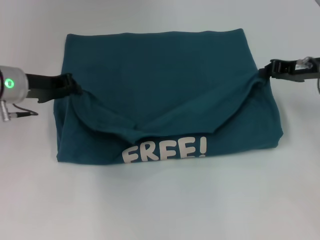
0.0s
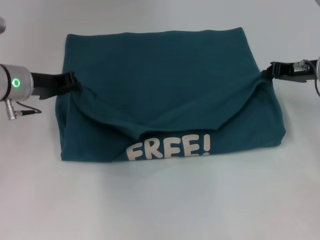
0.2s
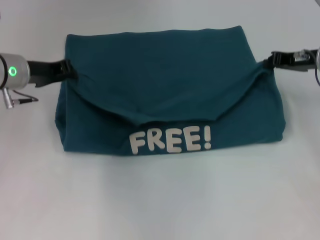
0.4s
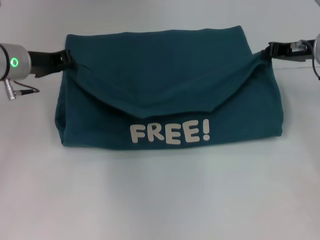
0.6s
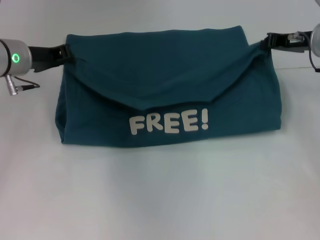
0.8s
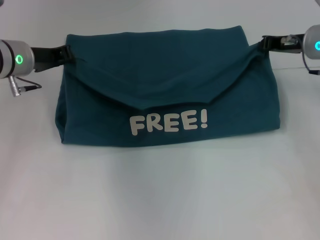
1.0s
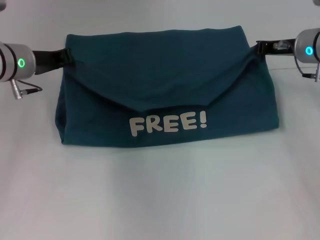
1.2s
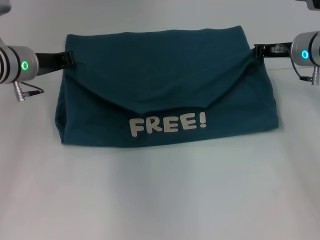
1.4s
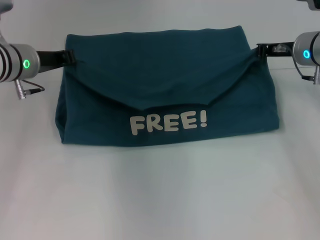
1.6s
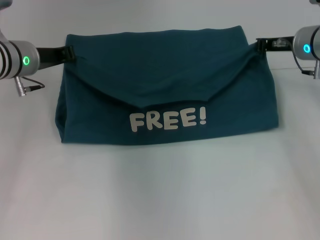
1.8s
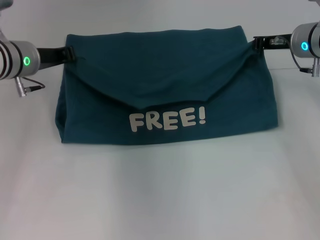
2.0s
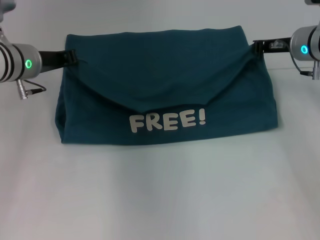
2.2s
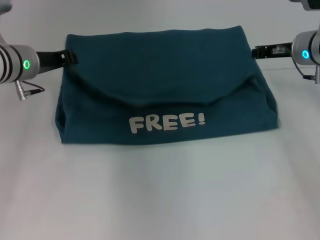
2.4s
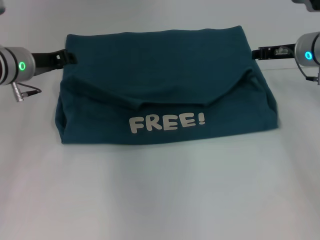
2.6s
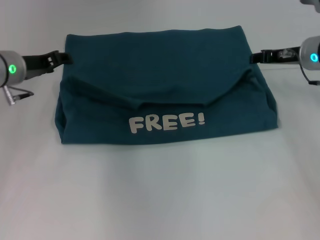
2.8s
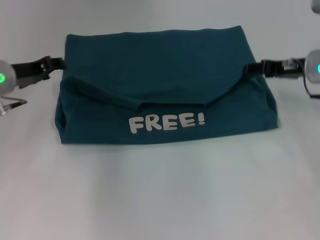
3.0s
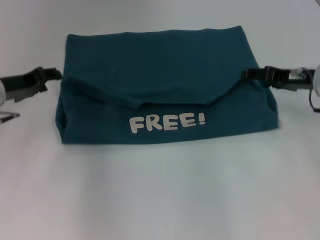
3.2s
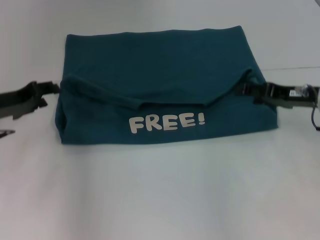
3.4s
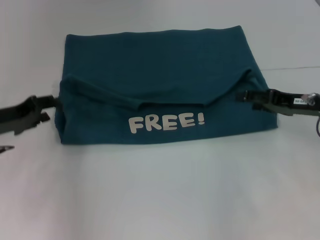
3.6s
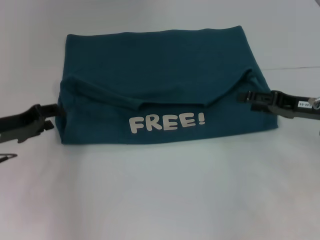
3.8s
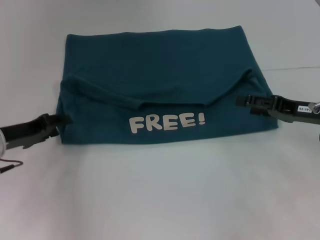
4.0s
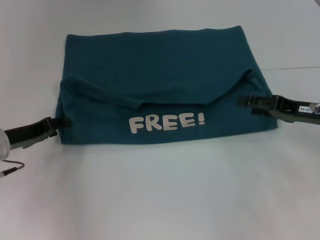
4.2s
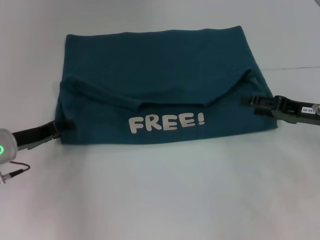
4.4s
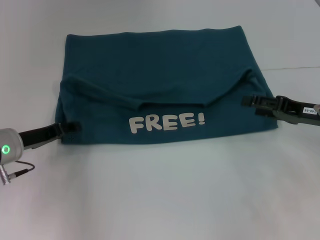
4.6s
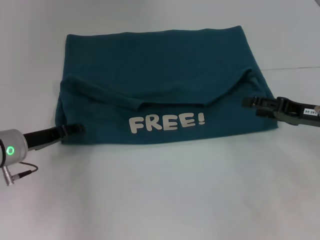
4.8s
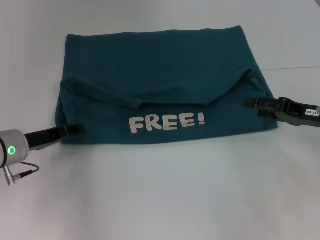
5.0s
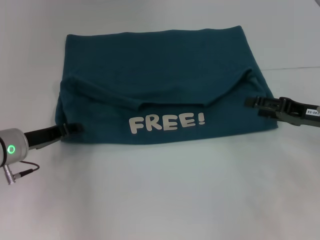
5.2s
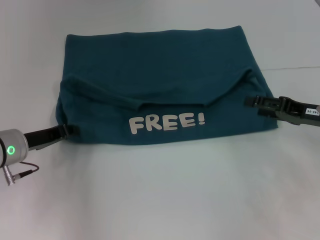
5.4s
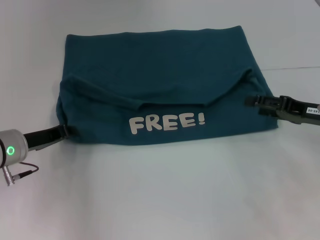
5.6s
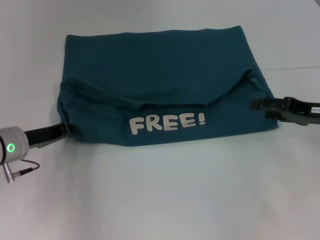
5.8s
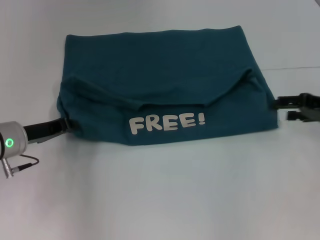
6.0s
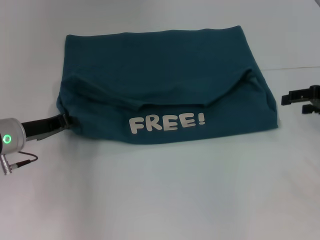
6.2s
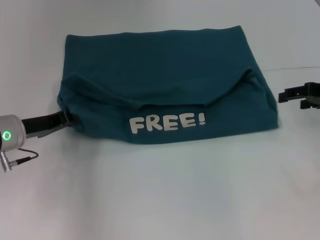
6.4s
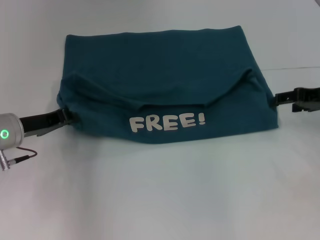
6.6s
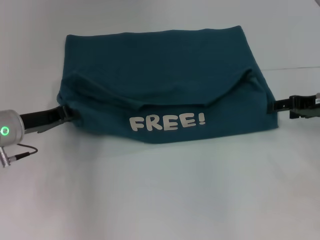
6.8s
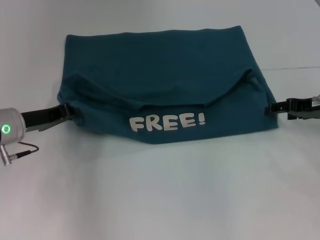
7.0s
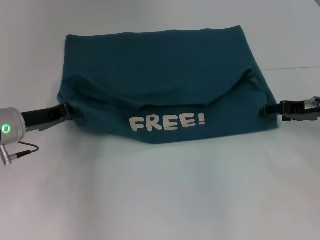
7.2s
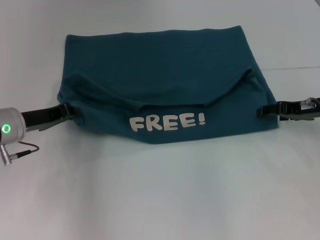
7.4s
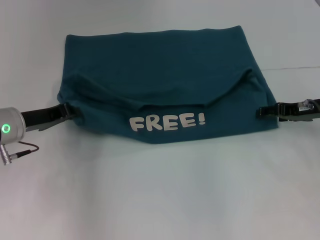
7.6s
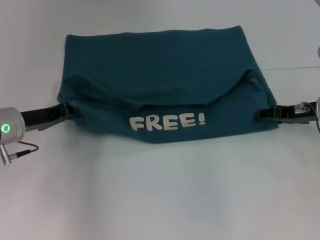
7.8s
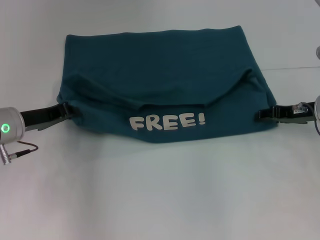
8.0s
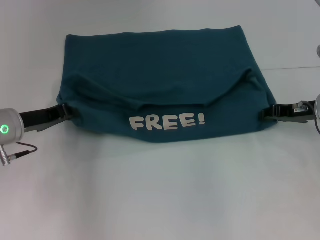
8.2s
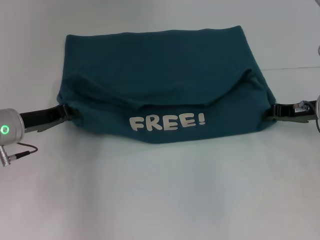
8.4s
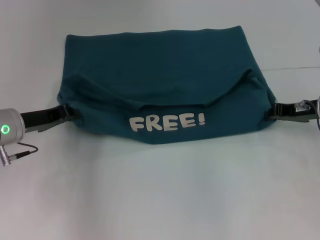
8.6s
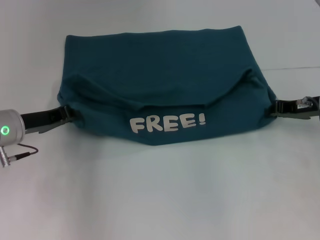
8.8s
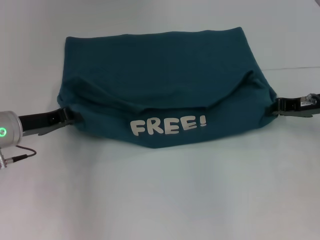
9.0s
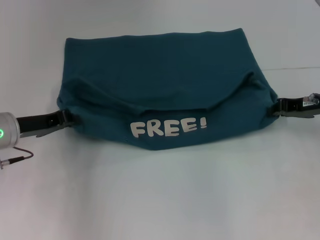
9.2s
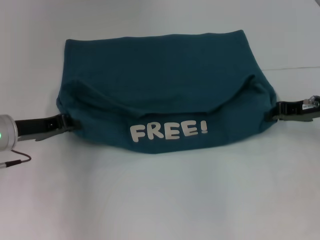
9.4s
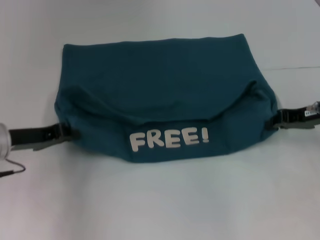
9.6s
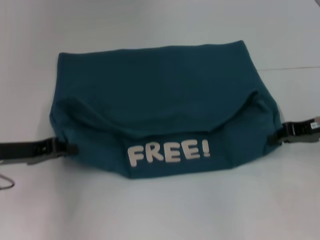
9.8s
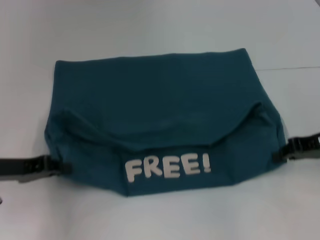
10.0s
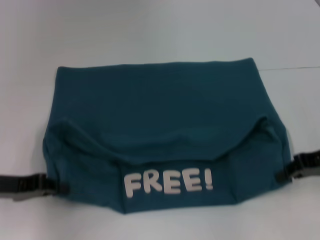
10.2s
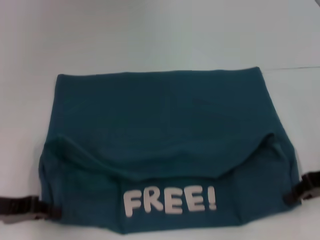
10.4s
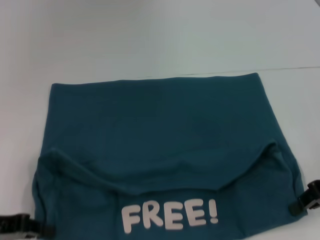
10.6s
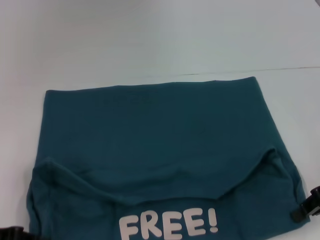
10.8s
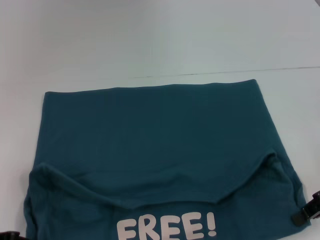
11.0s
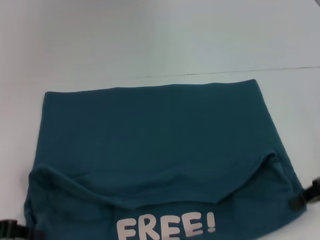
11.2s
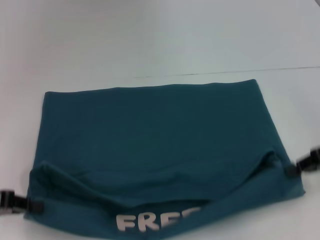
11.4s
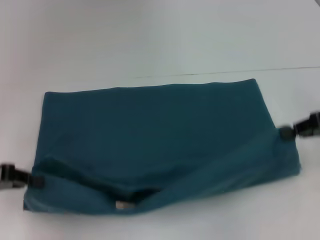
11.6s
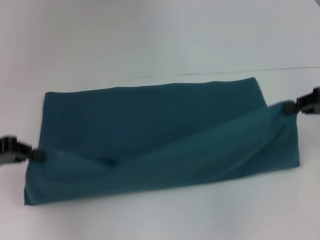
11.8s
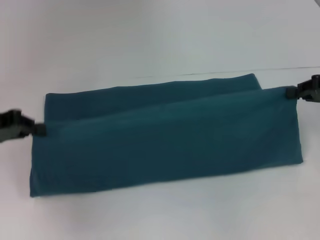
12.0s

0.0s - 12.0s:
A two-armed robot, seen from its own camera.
Step, 0.0s - 2.4s: Fold the clothes to the left.
Step, 0.0s - 2.4s: Fold the clothes to the right.
Step, 2.6s - 10.6s: Pull the clothes with your left hand.
Step, 2.6s - 10.6s: Pull the clothes with your right hand.
0.0s - 1.6s: The right gripper moves roughly 5 cm.
1.6s - 3.0s: The left gripper opens up, while the right gripper opens up.
3.0s - 4.4s: The left gripper is displaced downward and backward by approximately 10 cm. The right gripper moves backward, about 10 cm, and opens.
4.4s - 6.0s: The left gripper closes its fingers, while the right gripper changes place by roughly 5 cm.
6.0s - 7.6s: The right gripper ends up some 5 cm from where it was.
7.6s - 9.0s: The right gripper closes.
9.0s - 10.4s: Both grippers move backward, roughly 10 cm.
10.4s - 12.0s: The right gripper shifts by about 5 cm. The left gripper heads upward and forward, covering approximately 10 cm.

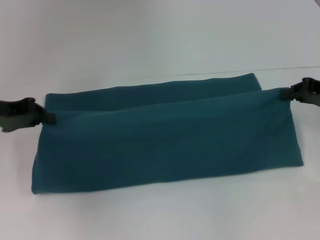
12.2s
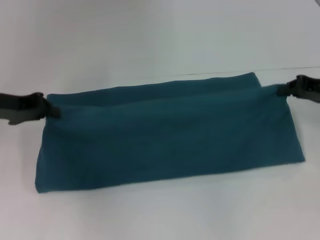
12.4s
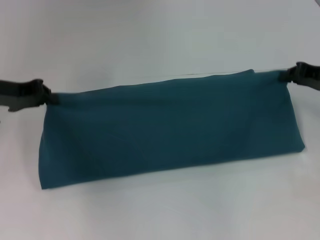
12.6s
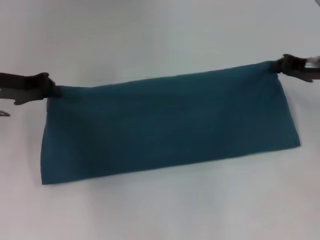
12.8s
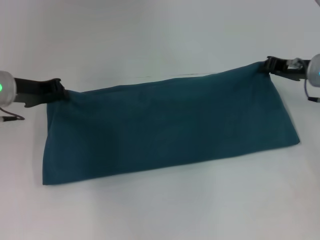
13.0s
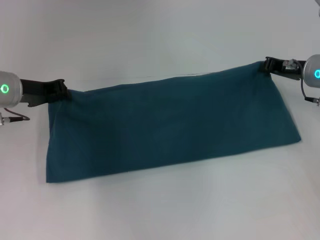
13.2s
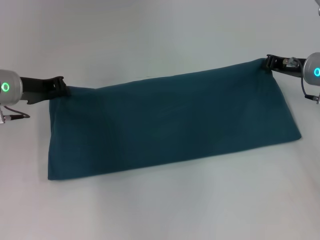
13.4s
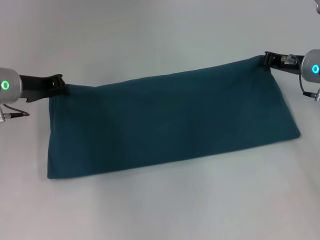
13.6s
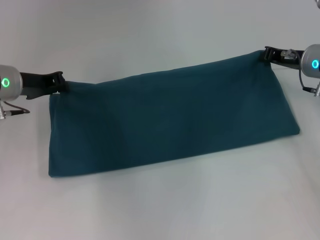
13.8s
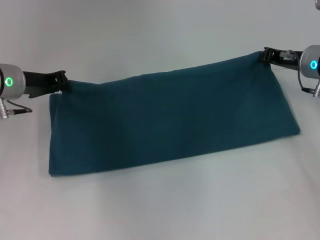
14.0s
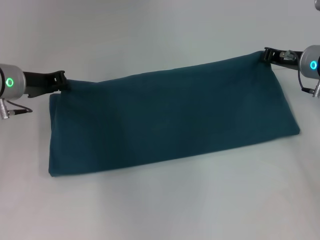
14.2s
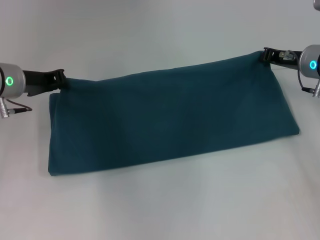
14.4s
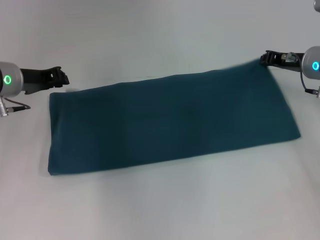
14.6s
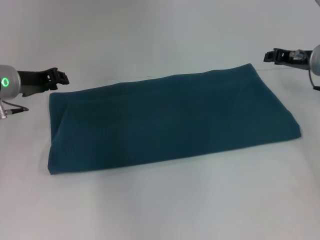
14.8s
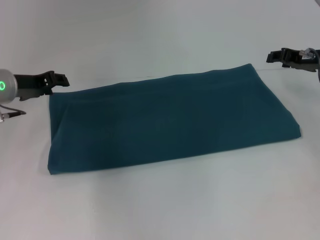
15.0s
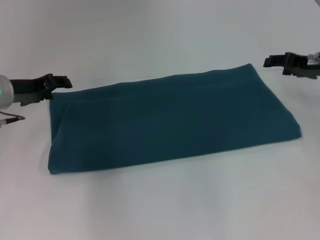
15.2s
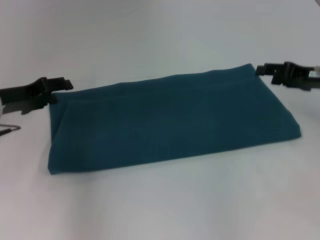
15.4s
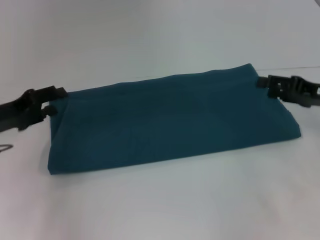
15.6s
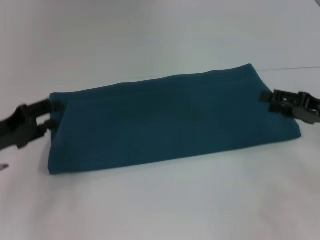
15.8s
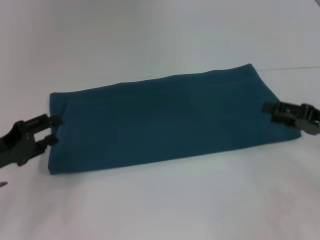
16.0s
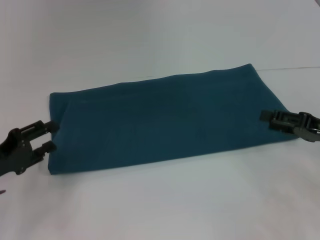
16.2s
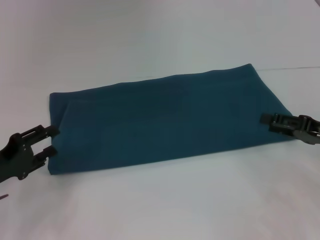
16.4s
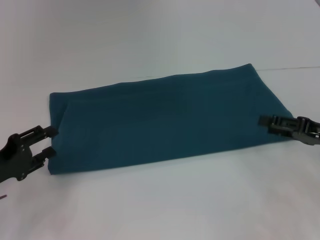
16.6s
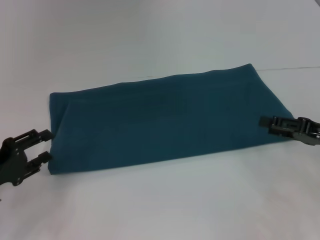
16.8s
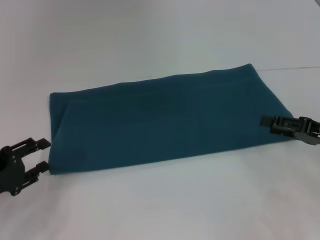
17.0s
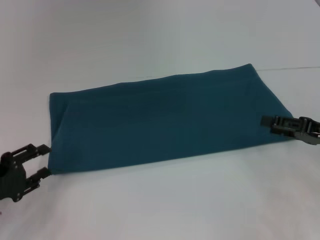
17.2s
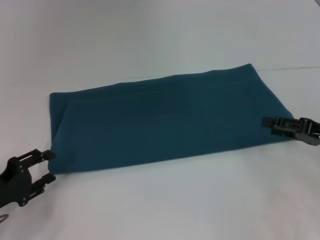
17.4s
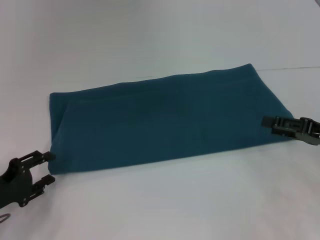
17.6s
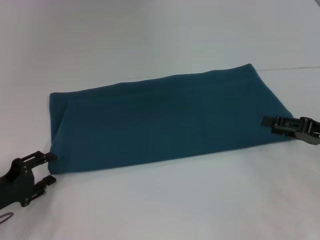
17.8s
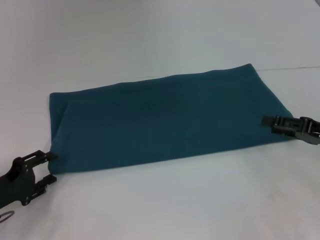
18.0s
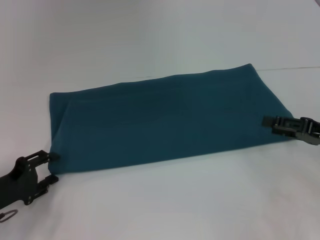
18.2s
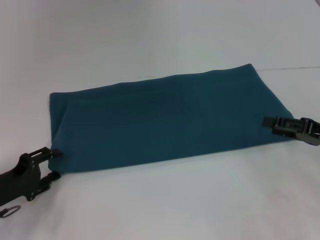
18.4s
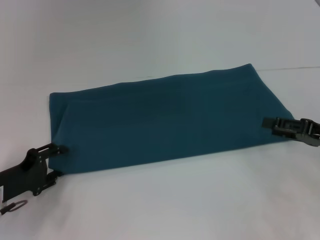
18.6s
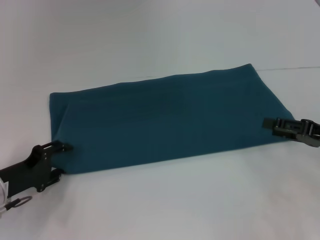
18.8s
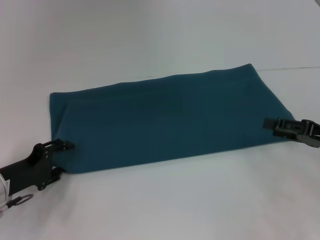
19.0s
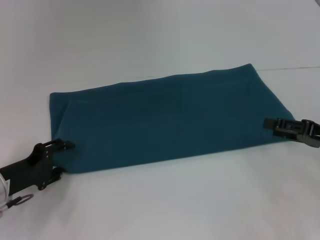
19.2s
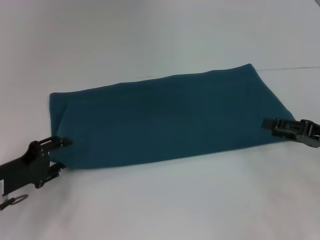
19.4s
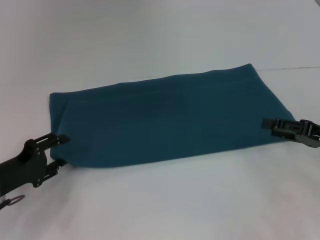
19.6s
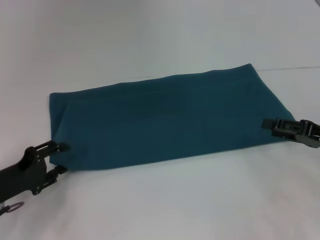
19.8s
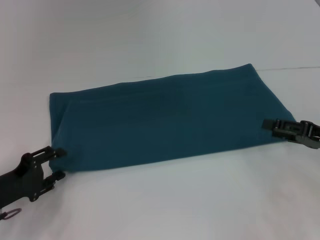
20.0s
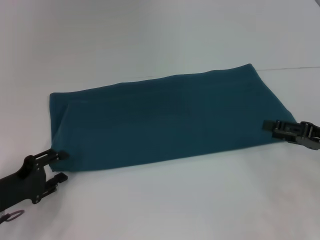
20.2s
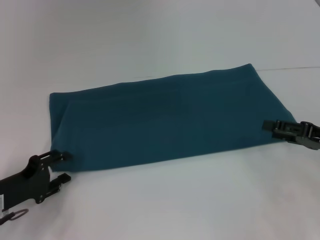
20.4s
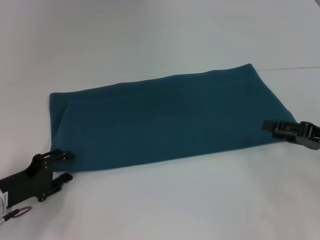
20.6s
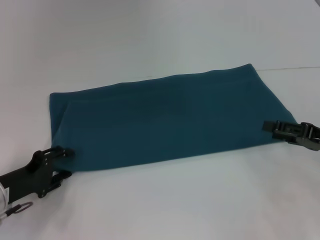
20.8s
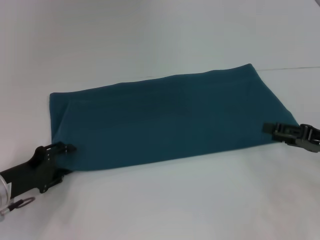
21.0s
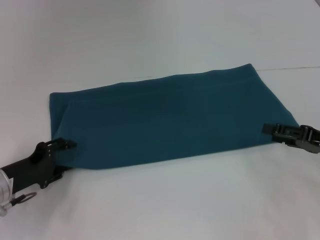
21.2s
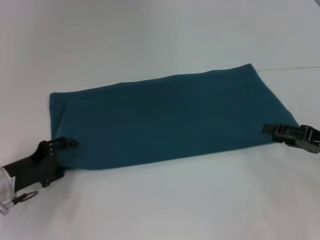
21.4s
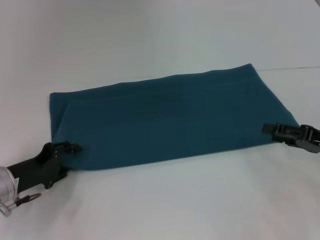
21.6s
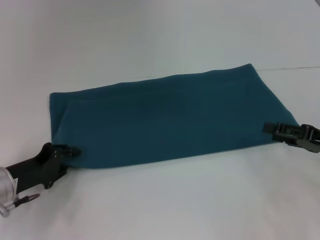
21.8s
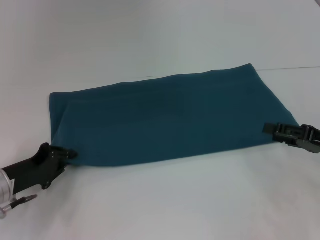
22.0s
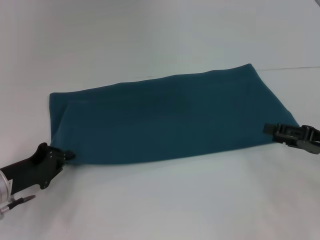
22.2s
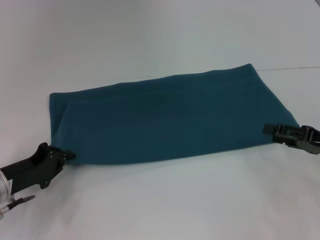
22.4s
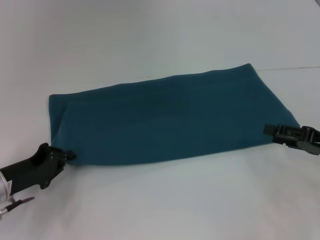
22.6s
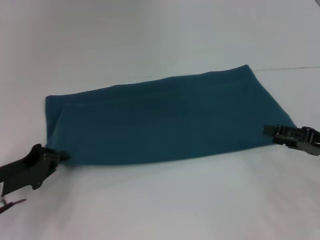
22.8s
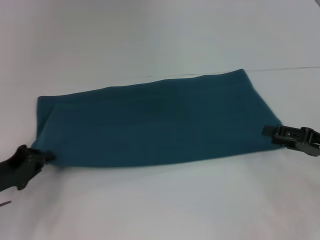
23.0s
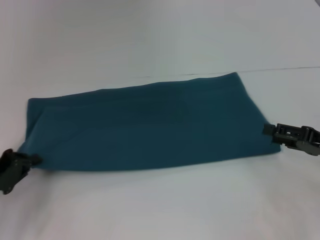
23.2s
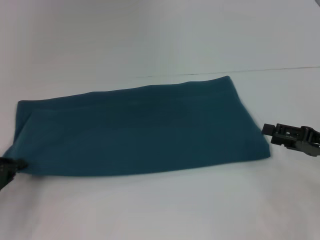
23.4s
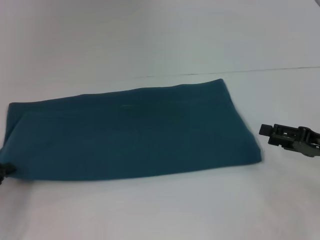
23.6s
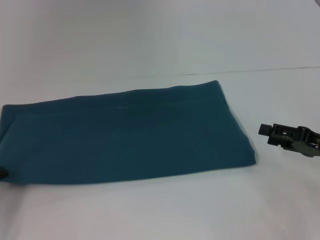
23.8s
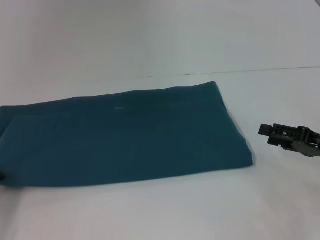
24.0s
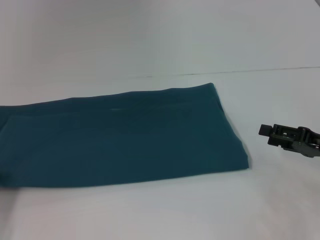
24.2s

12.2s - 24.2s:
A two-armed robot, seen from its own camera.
Step, 12.2s - 14.8s: Fold the clothes to the right.
12.2s - 13.8s: The right gripper is displaced forward and to the left by some 10 cm. Meanwhile the left gripper travels forward and to the right by some 10 cm.
13.8s - 15.2s: The right gripper opens, while the left gripper opens its fingers.
15.2s - 16.6s: The grippers both shift backward and downward by some 15 cm.
16.6s - 21.2s: The grippers make only small movements.
21.2s - 22.6s: The left gripper closes up.
22.6s - 24.2s: The left gripper is displaced to the left and backward by approximately 10 cm.
